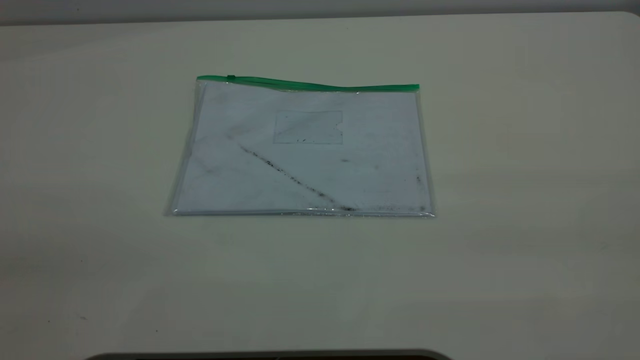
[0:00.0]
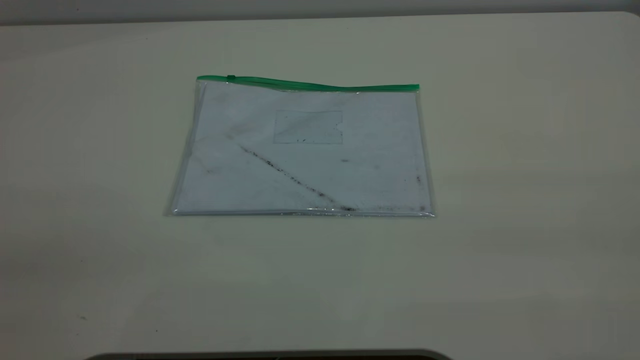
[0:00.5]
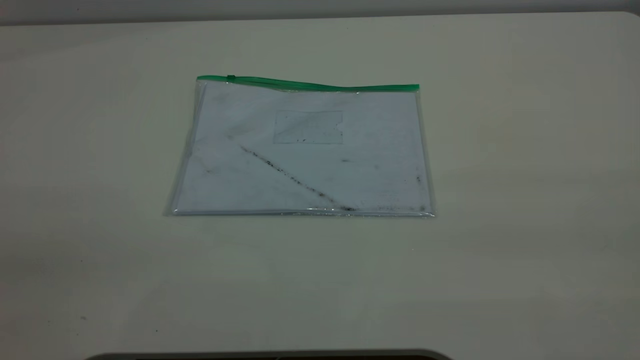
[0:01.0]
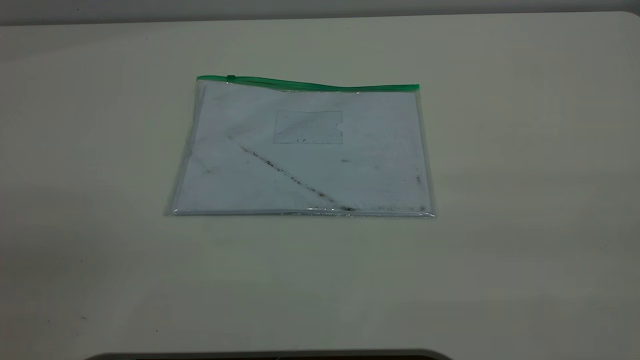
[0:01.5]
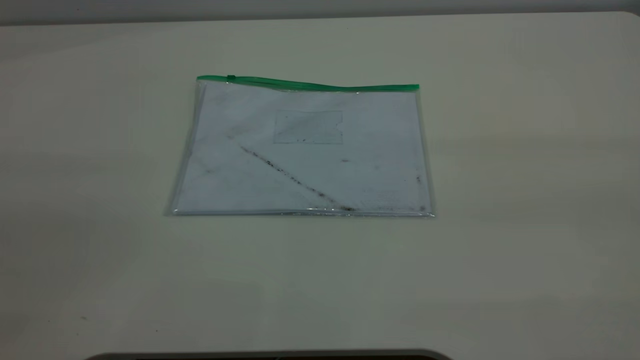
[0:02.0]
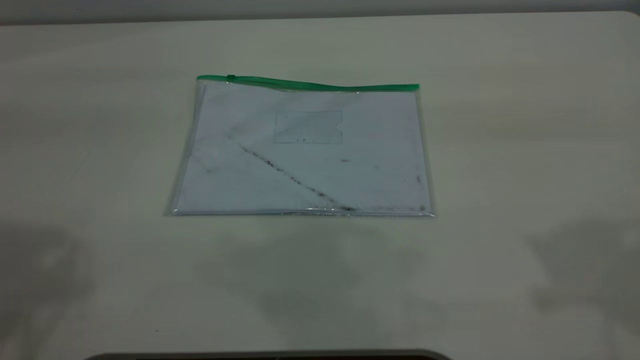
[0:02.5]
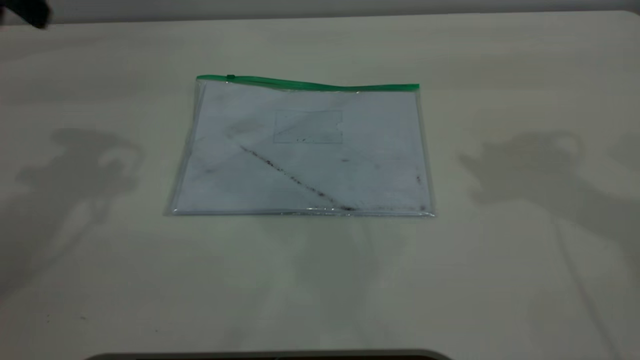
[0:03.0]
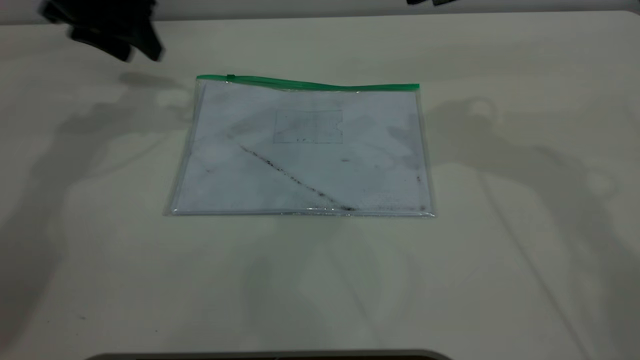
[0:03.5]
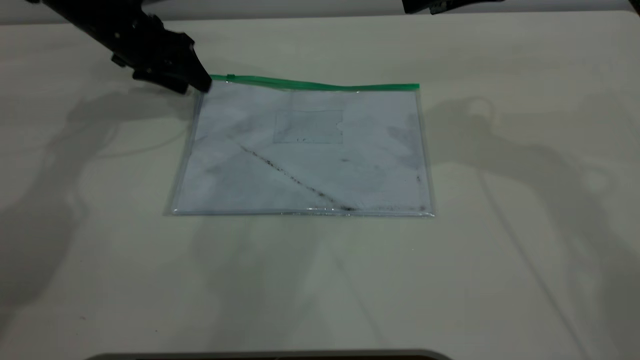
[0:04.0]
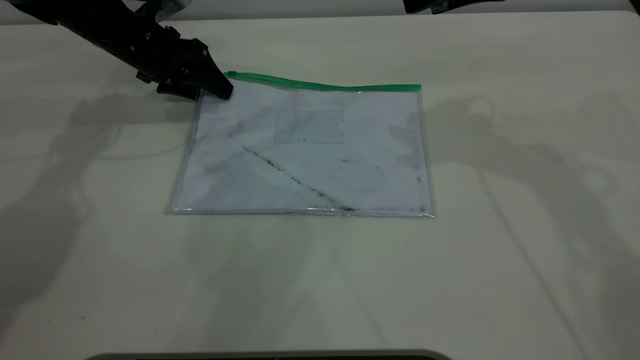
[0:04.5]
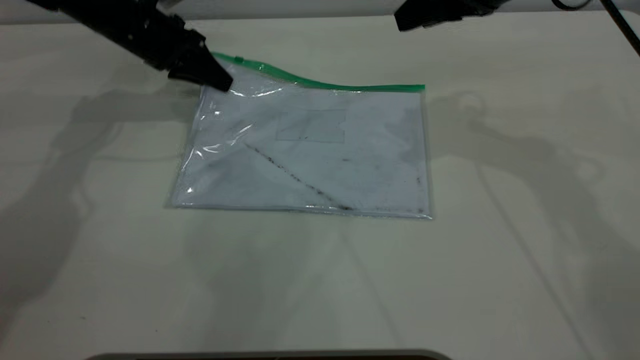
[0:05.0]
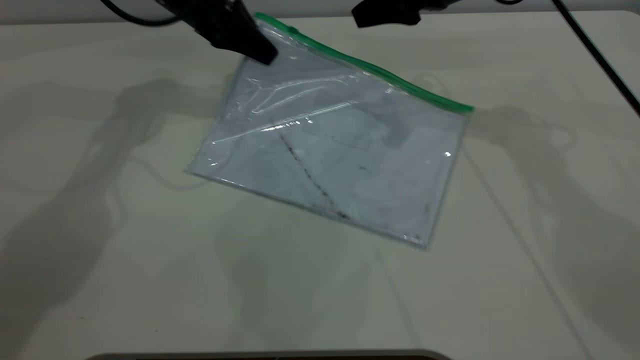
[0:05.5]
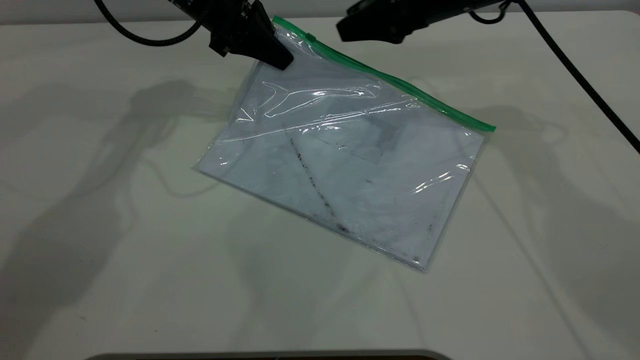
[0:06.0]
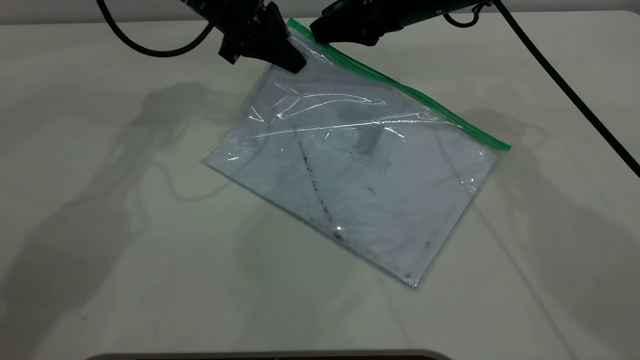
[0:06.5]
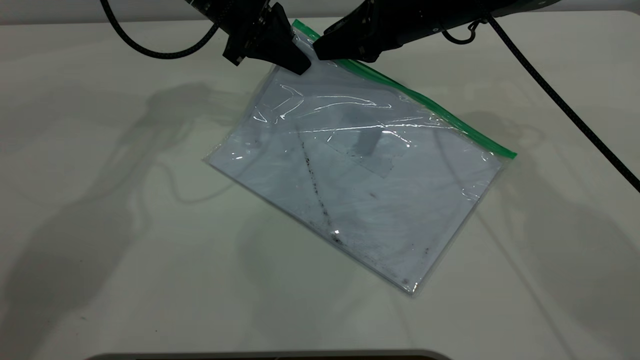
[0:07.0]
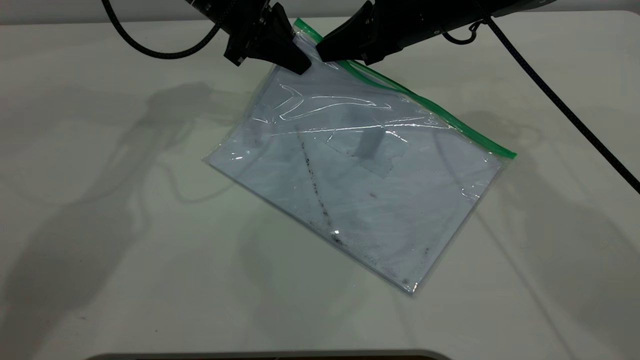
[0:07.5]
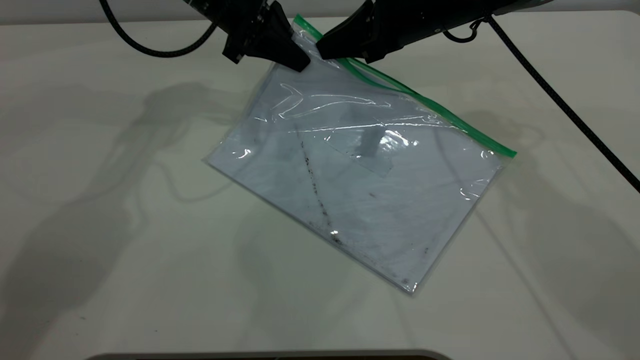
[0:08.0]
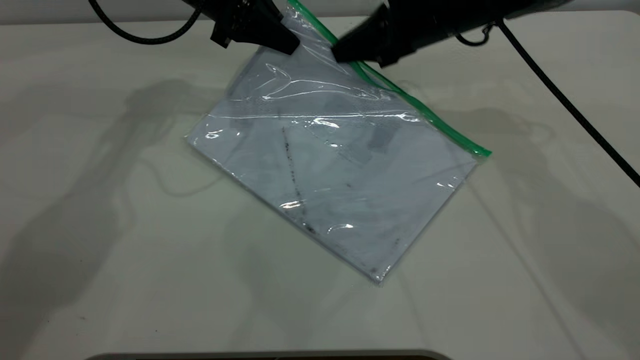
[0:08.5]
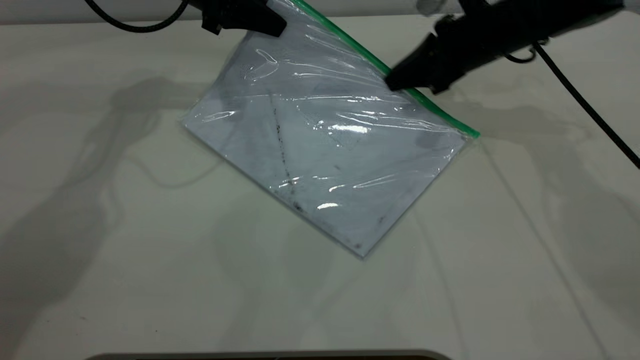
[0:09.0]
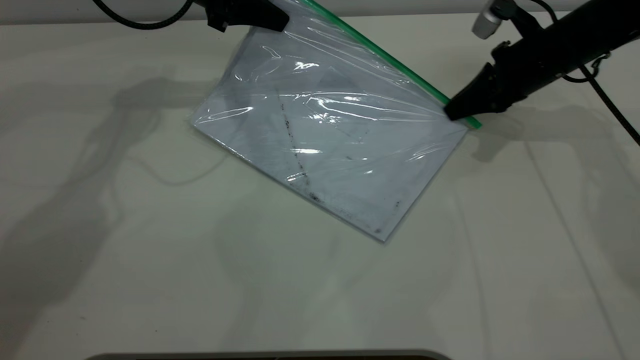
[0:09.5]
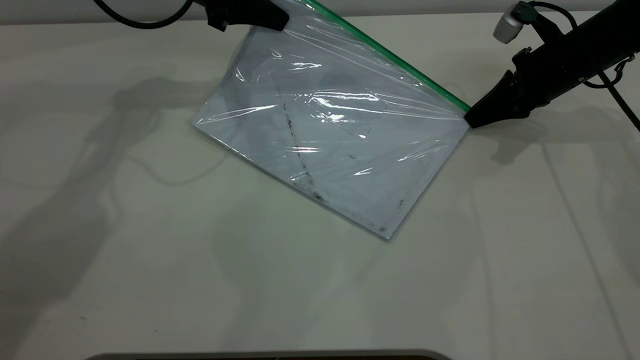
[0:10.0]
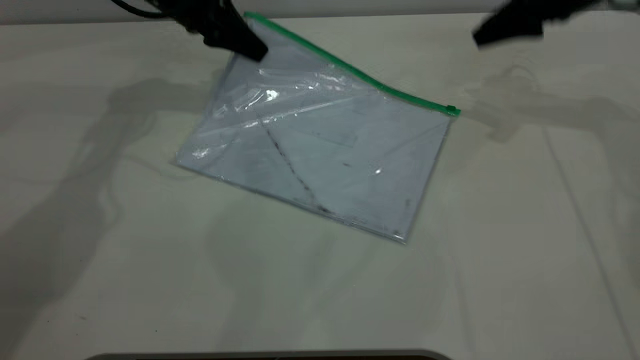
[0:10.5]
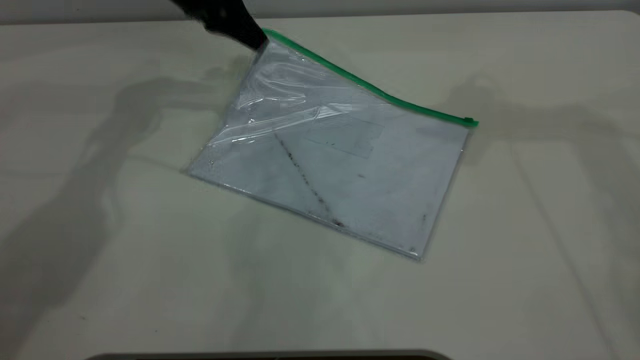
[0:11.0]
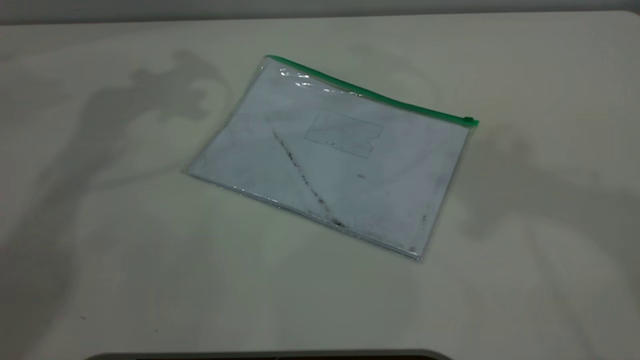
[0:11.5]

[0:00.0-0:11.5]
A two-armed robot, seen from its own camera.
Step, 0:00.0 to 0:05.0: Pick up the transparent plastic bag with the left gripper.
Step, 0:05.5 to 0:10.0: Pulling up the zipper on the transparent plastic bag with the right gripper to close it.
Step, 0:10.5 to 0:11.0: Place the transparent plastic bag.
0:02.0 to 0:04.0: The left gripper is displaced forward and downward by approximately 60 cm.
0:04.0 to 0:06.0: The right gripper goes some 10 cm downward and forward, while the left gripper moves to the right and upward, approximately 10 cm, and closes.
0:06.0 to 0:07.5: The right gripper closes.
0:07.5 to 0:09.5: The right gripper travels to the right and downward by some 15 cm. Meanwhile the left gripper shifts by about 5 cm.
0:09.5 to 0:11.5: The right gripper shifts about 40 cm upward, and opens. Meanwhile the left gripper moves upward, approximately 20 cm, and opens its fingers.

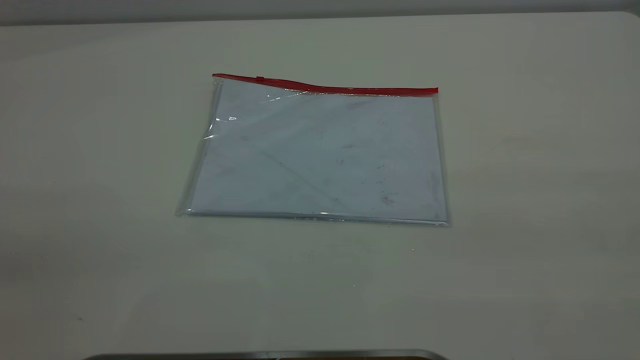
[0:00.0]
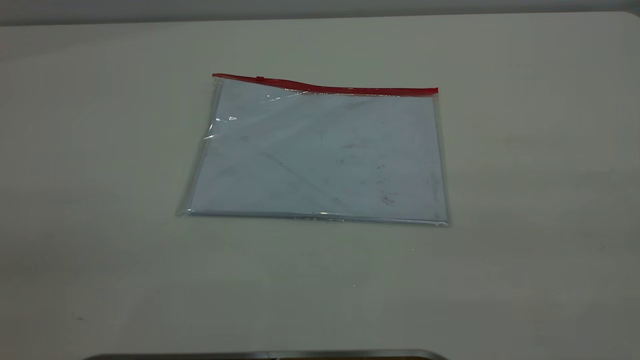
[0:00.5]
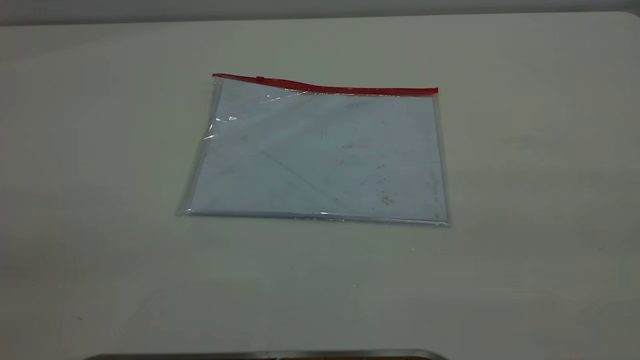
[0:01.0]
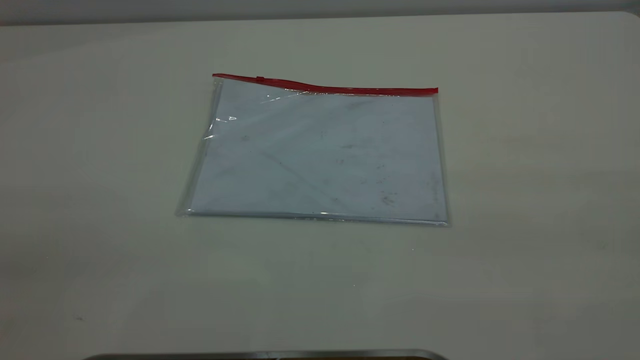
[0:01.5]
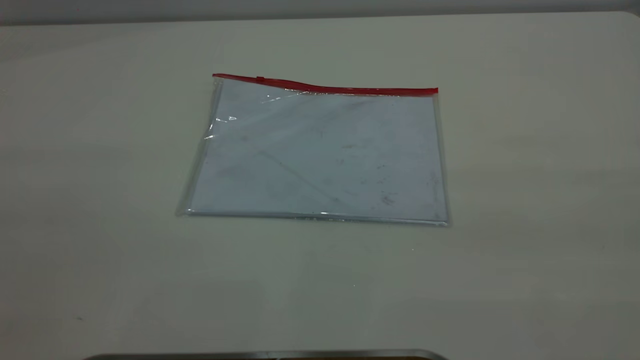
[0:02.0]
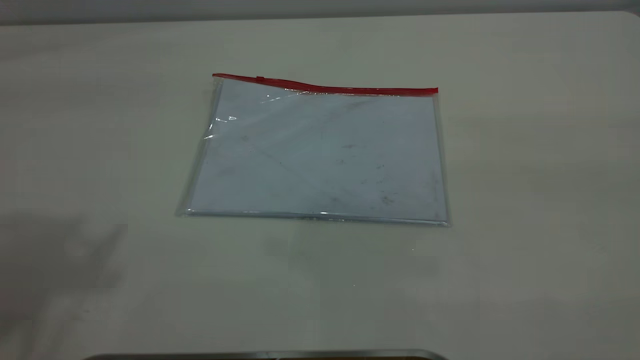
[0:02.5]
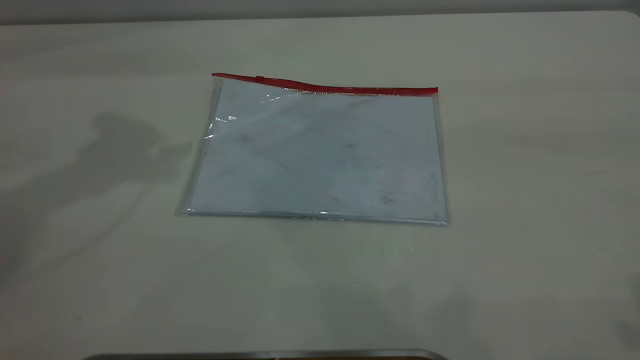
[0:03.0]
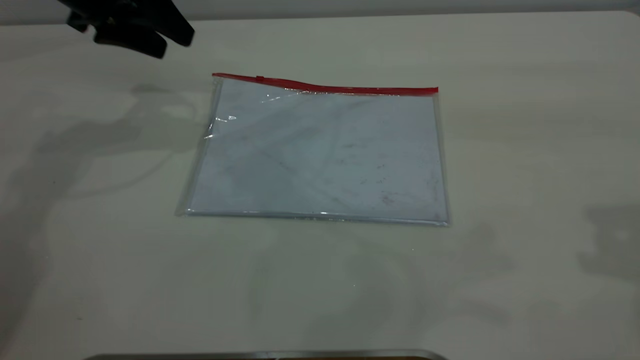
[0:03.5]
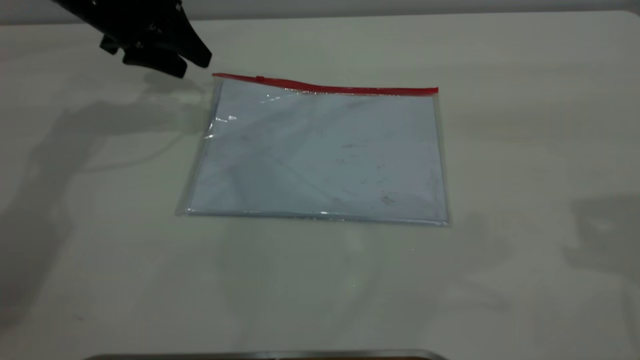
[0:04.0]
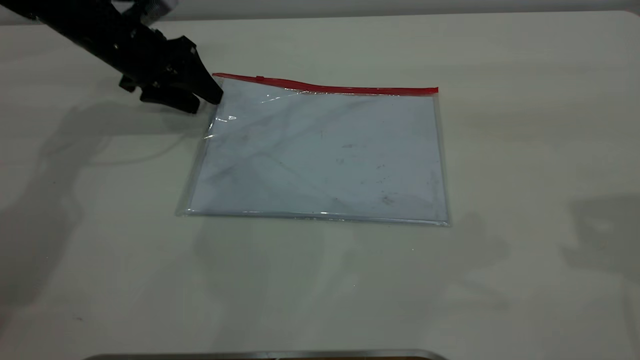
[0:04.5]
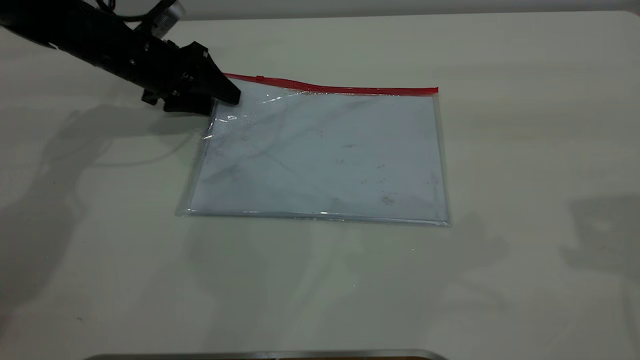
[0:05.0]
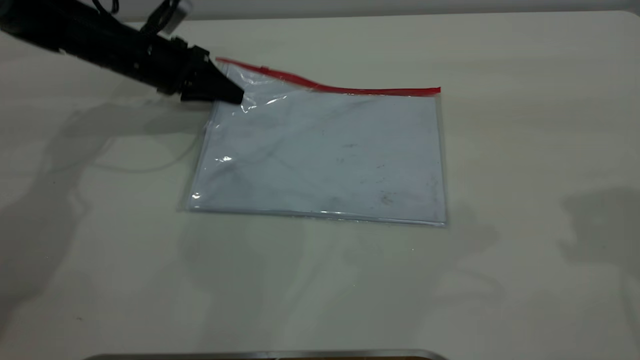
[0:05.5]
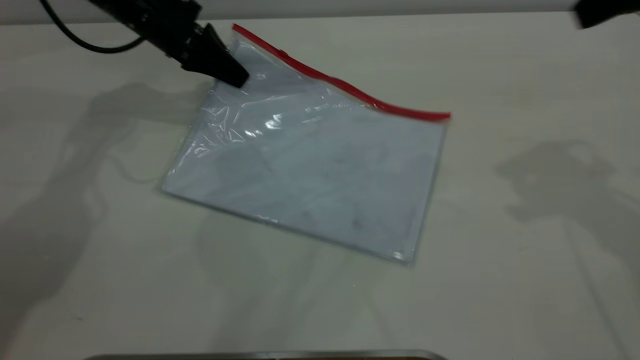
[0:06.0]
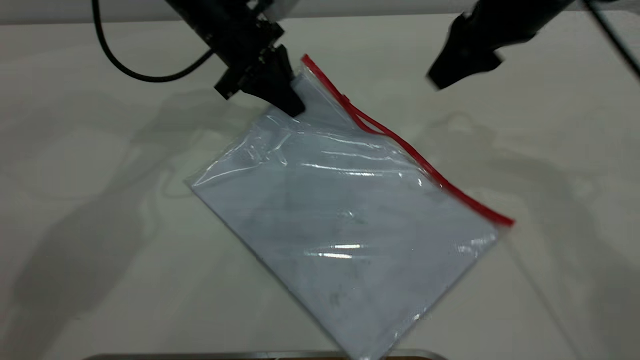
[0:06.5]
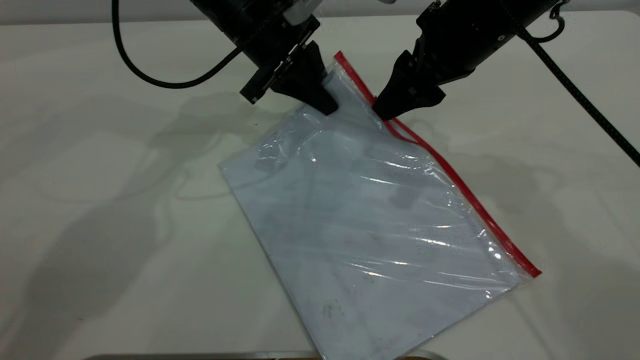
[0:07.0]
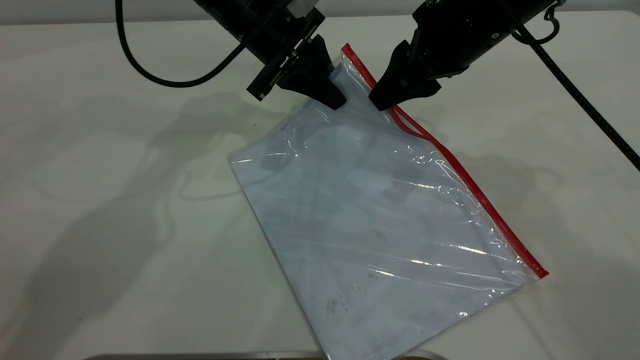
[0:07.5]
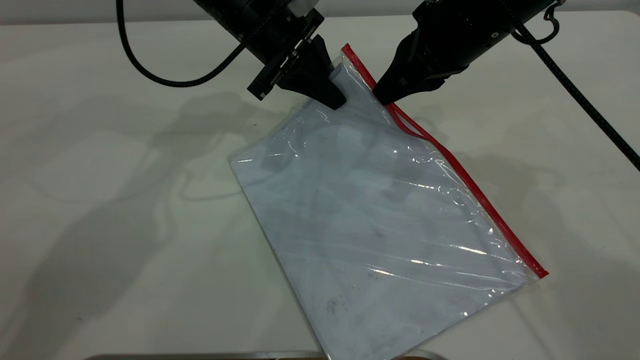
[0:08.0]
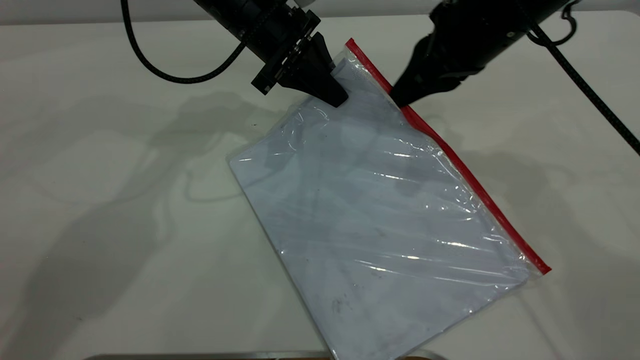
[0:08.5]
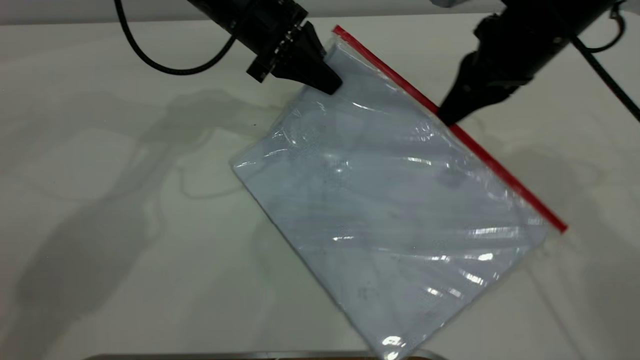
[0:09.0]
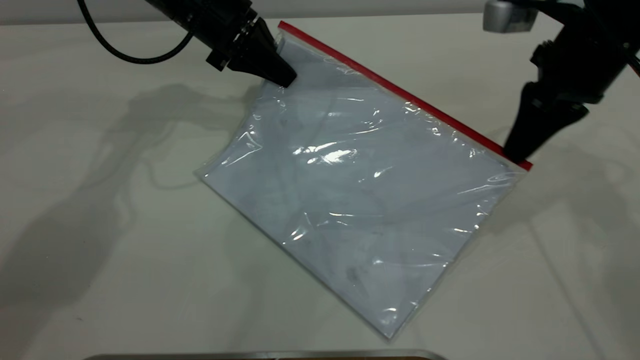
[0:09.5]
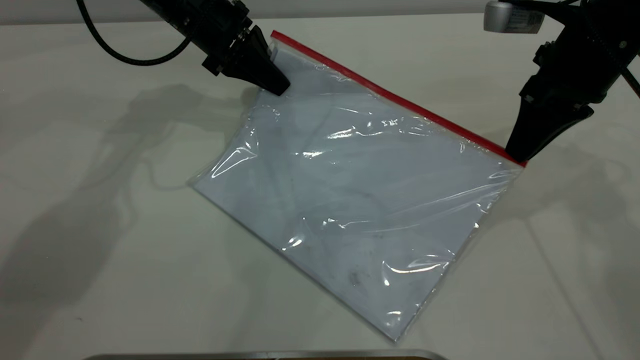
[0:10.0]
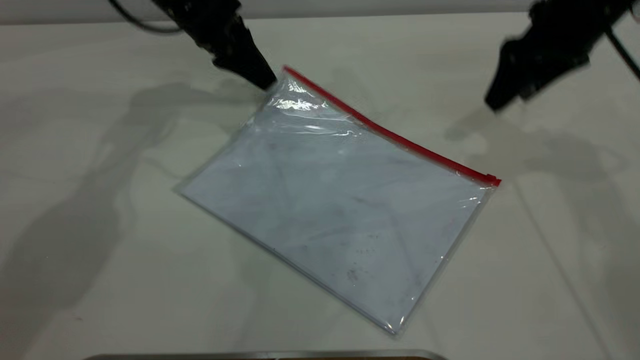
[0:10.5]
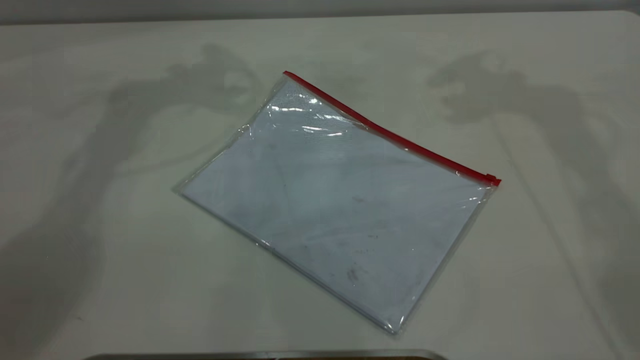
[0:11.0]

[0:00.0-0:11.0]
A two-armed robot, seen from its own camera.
Step, 0:00.0 to 0:05.5: Pick up the transparent plastic bag with the left gripper.
Step, 0:06.0 to 0:10.0: Pulling up the zipper on the transparent plastic bag with the right gripper to close it.
0:02.0 to 0:03.5: The left gripper moves forward and downward, about 50 cm.
0:03.5 to 0:05.5: The left gripper goes approximately 10 cm downward, and closes its fingers.
0:05.5 to 0:07.5: The left gripper heads to the right, covering roughly 15 cm. The right gripper travels to the left, downward and forward by some 25 cm, and closes up.
0:07.5 to 0:09.0: The right gripper heads to the right, covering about 5 cm, and closes its fingers.
0:09.0 to 0:11.0: The left gripper is displaced upward by approximately 20 cm, and opens its fingers, while the right gripper shifts approximately 25 cm upward and forward, and opens its fingers.
